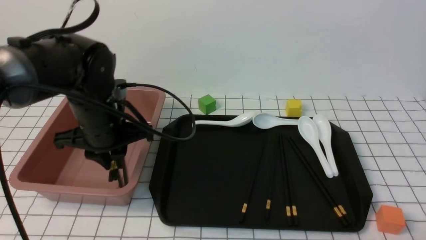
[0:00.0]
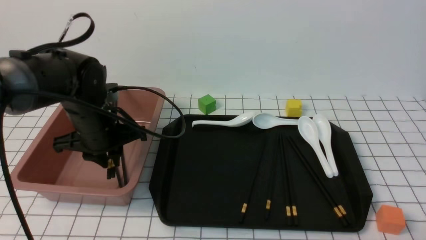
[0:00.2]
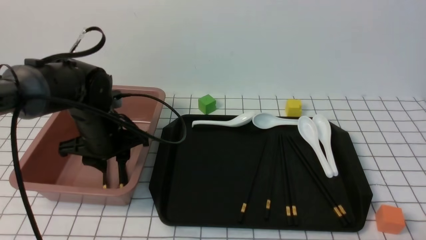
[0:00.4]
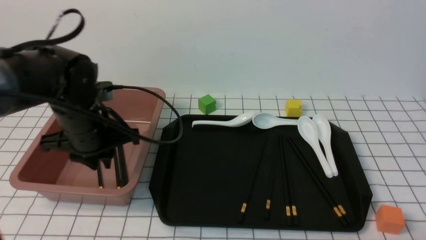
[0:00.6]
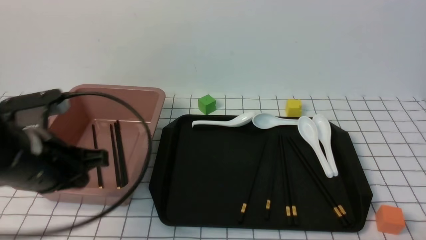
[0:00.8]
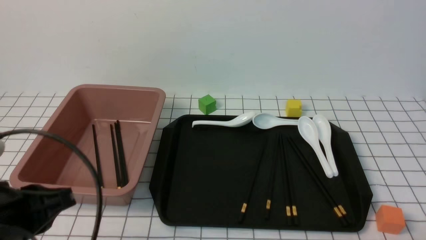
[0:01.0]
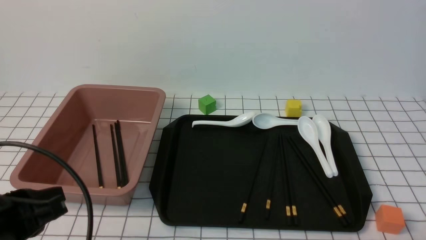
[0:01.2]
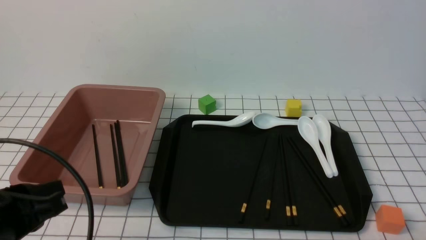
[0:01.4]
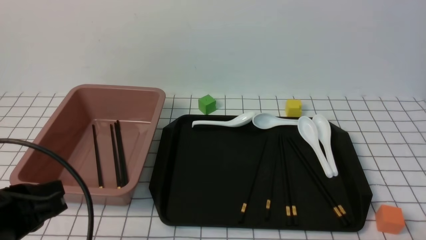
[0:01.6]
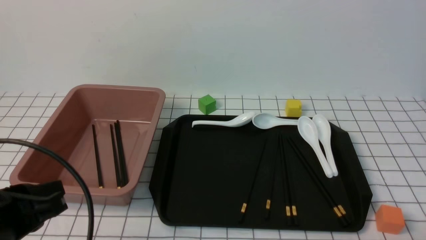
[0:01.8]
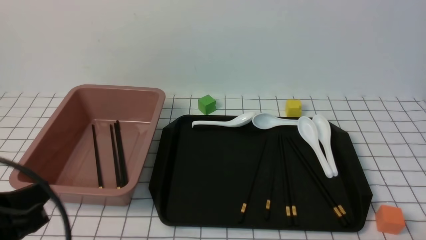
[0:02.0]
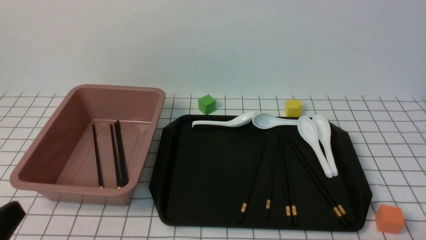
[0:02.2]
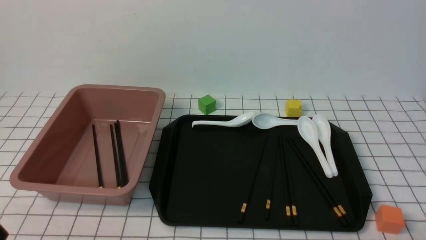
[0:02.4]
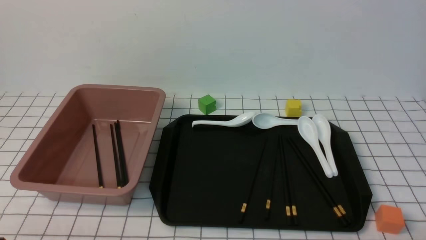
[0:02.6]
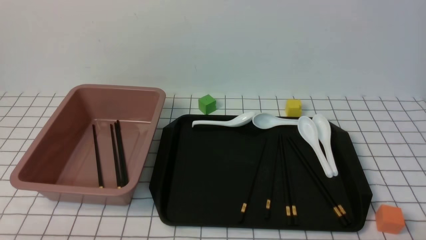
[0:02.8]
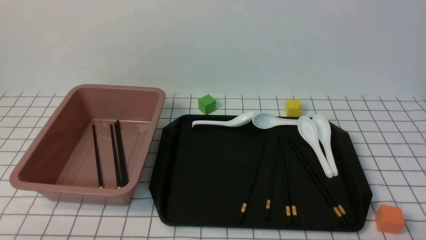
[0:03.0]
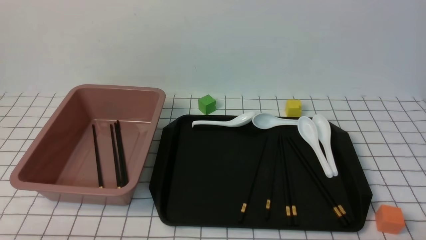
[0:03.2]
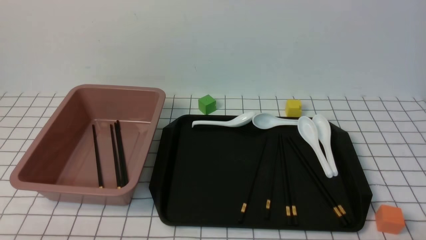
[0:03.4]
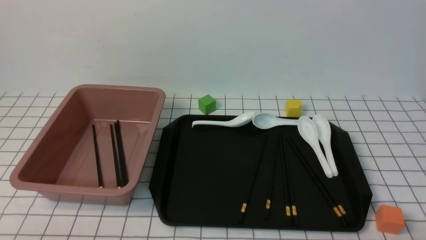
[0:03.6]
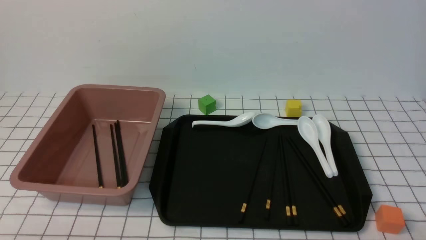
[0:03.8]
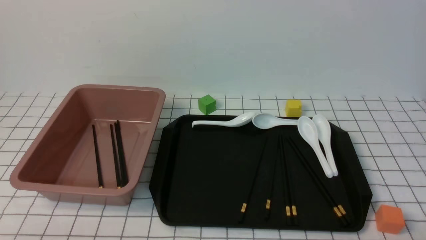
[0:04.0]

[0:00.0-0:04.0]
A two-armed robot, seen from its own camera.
Step, 0:00.0 to 0:00.8: use the left arm to put the chopsticks into the lunch box.
0:00.0 to 0:01.4: The left gripper moves backward, roughly 20 cm, and closes its fingers.
0:01.4 to 0:02.6: The left gripper moves backward and downward, some 10 cm.
